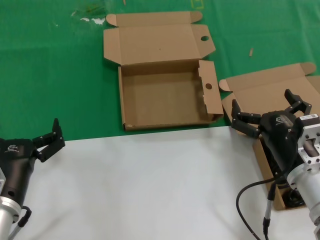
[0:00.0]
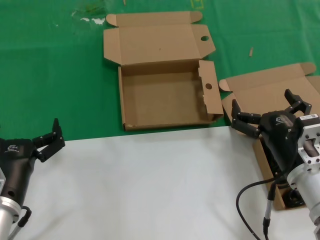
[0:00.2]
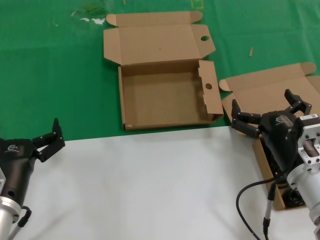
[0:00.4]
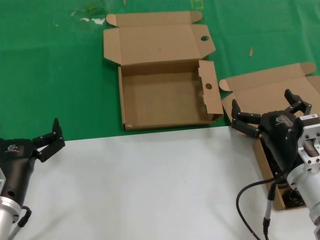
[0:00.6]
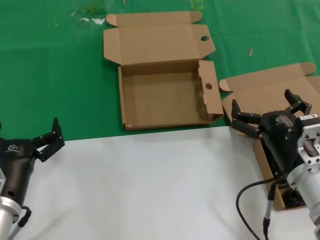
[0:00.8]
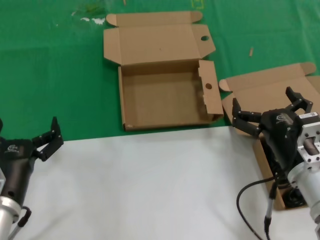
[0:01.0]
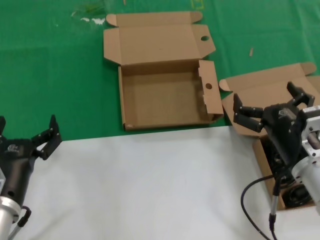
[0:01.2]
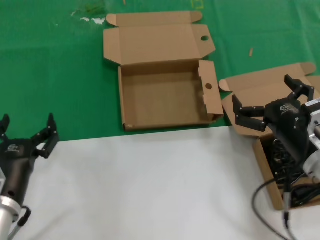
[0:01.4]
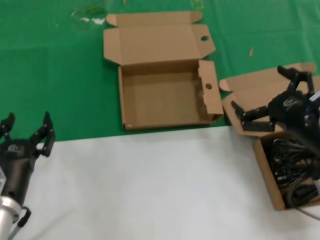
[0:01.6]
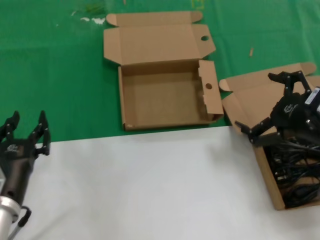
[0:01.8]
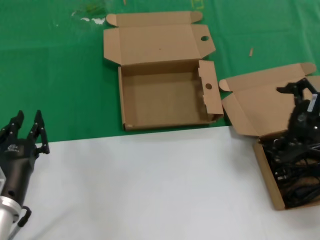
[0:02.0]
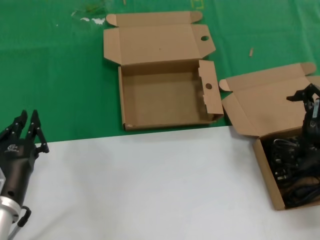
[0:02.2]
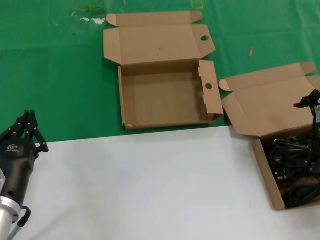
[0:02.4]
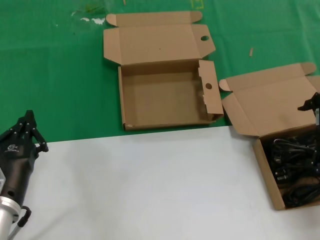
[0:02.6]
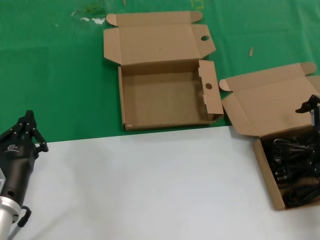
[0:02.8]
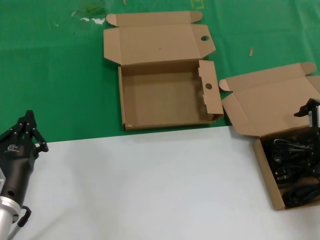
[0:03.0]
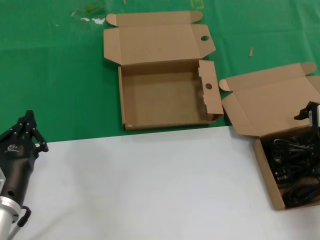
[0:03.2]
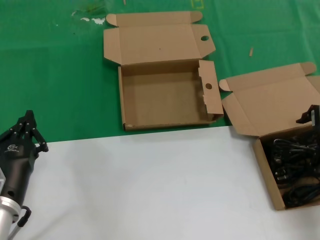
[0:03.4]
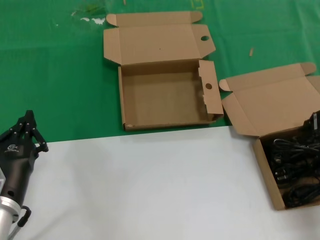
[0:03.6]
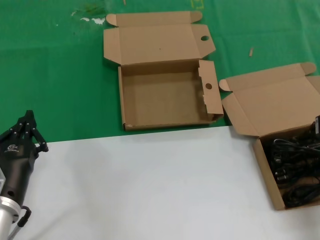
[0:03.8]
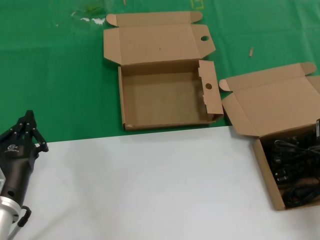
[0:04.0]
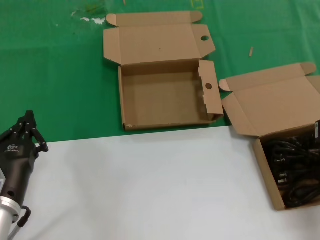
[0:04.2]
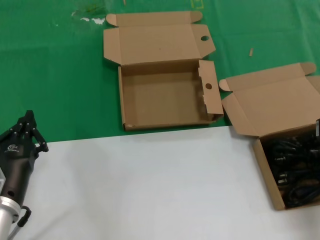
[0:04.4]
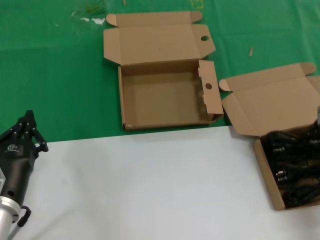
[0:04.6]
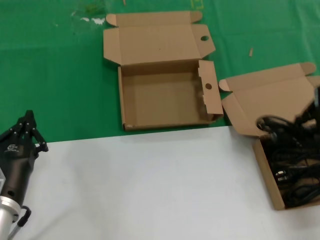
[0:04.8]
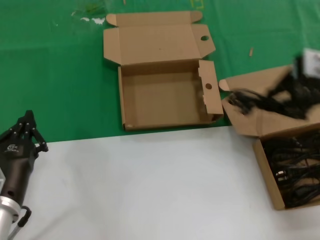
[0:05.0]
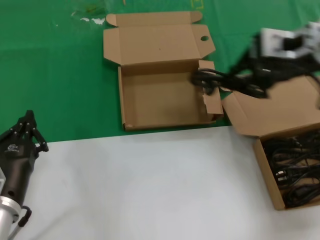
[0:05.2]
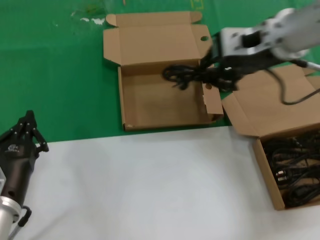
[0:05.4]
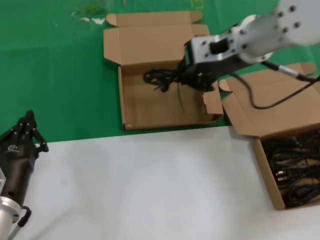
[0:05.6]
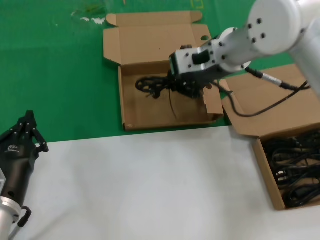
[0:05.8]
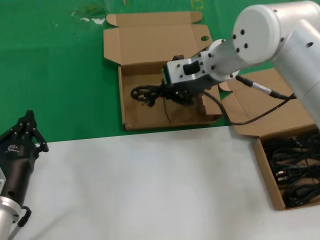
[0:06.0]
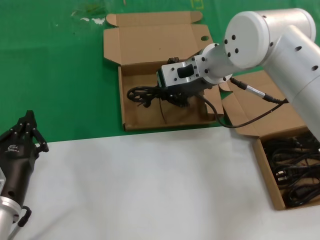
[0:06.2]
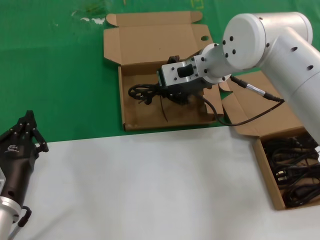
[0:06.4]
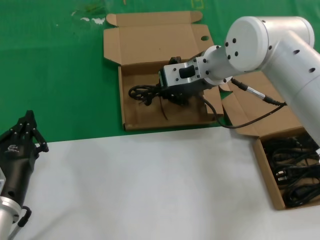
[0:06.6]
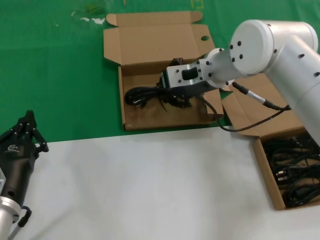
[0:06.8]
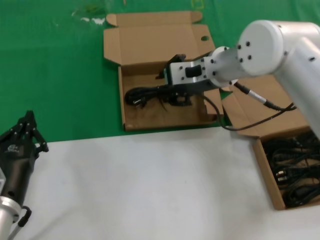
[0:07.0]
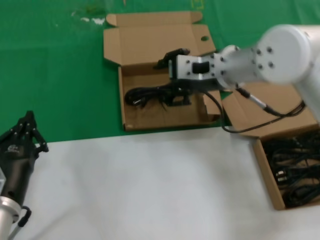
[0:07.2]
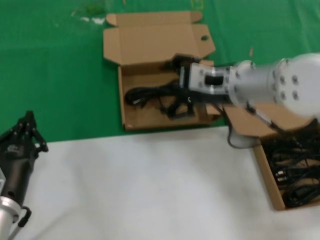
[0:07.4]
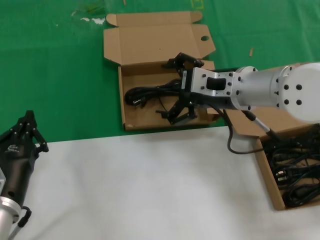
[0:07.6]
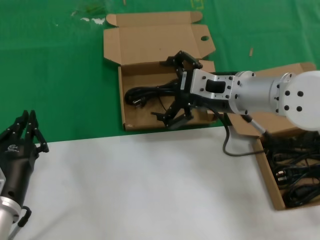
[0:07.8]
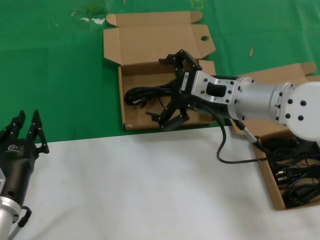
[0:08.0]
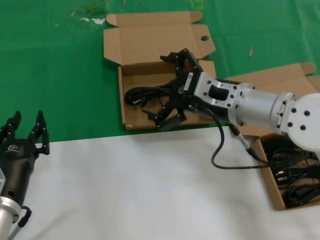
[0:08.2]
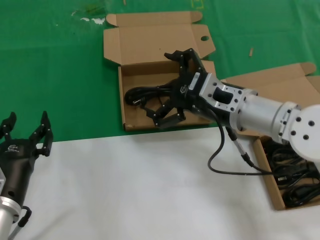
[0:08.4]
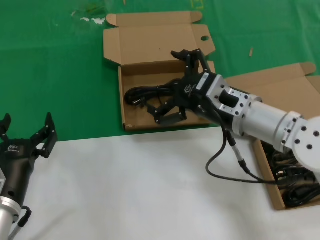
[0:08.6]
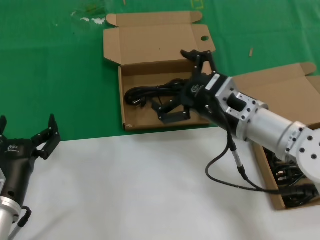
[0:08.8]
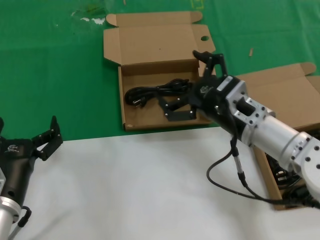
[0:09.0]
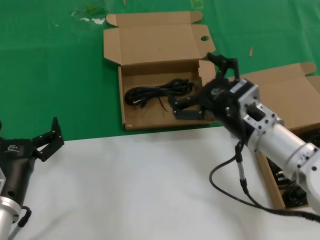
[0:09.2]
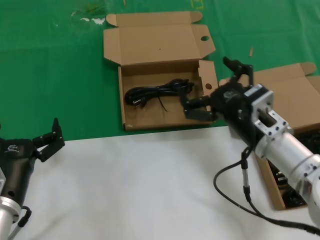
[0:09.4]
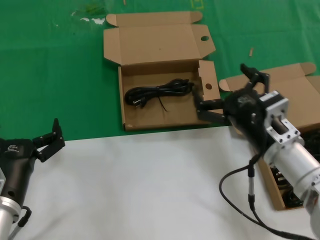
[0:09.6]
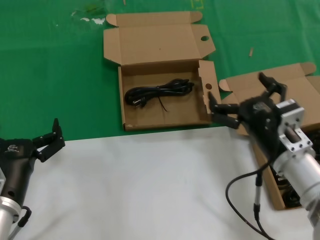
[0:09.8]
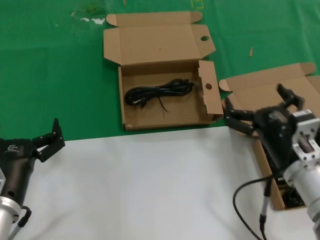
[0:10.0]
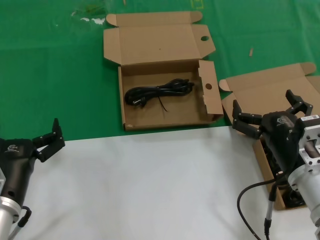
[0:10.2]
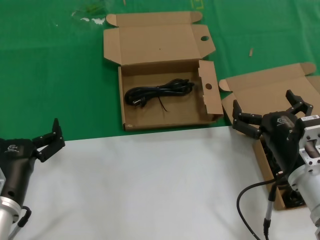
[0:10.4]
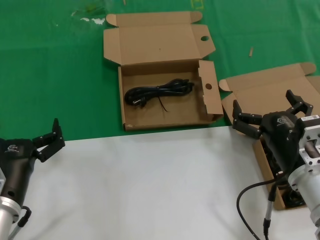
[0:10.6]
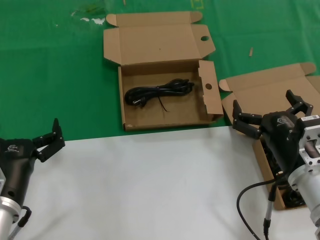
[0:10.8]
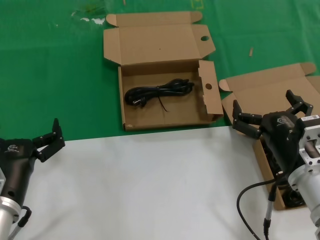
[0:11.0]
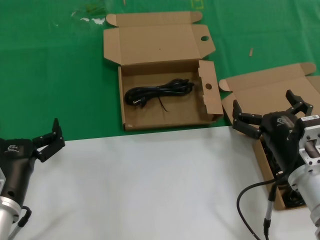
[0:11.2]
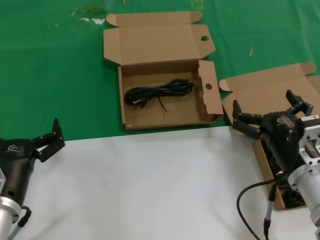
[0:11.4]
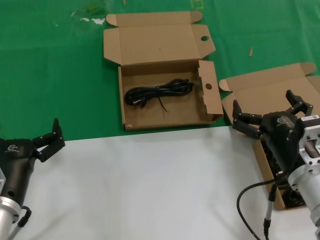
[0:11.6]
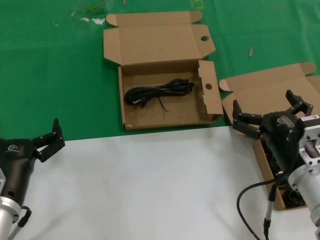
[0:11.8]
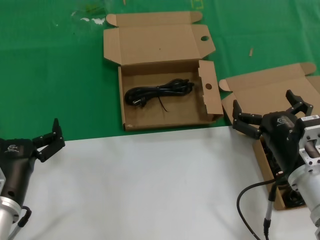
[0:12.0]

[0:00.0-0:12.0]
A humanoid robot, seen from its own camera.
Task of the whole recording: take the parts from the box containing them and put them into an empty box.
Step, 0:00.0 to 0:04.2: Grasp the data cable.
Step, 0:04.4 to 0:07.2: Place the data cable in the another box.
0:00.0 to 0:01.6: The right hand shifts about 10 cm upward and to the right.
0:01.6 to 0:03.0: The right hand shifts about 15 cm forward, to the right and upward.
0:04.4 to 0:06.0: The right hand shifts about 30 cm to the left and forward.
0:06.0 to 0:07.6: The right hand moves backward, approximately 10 cm.
0:07.6 to 0:09.0: The right hand goes about 10 cm downward and backward.
0:09.0 to 0:10.4: The right hand heads downward, backward and to the right, covering approximately 10 cm.
0:10.4 to 0:12.0: Both hands stay put.

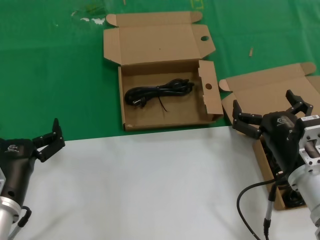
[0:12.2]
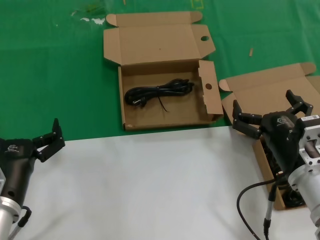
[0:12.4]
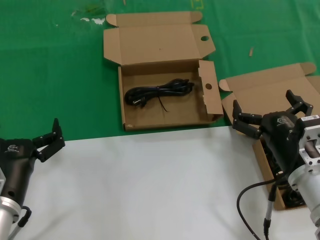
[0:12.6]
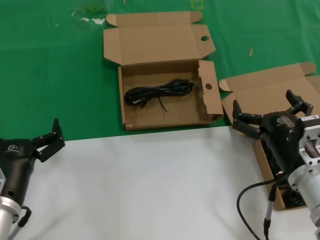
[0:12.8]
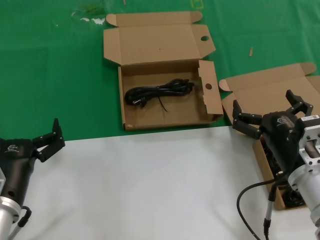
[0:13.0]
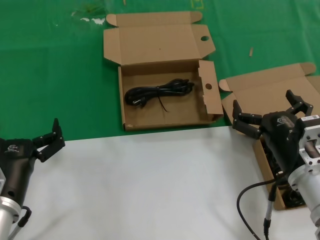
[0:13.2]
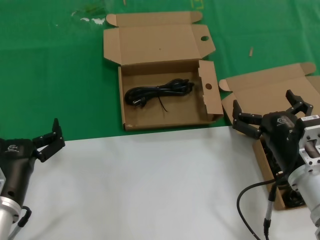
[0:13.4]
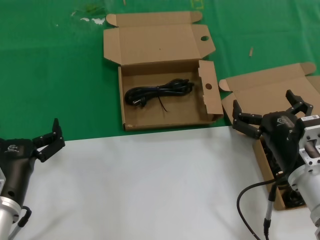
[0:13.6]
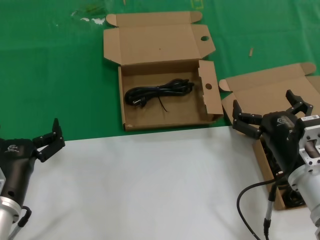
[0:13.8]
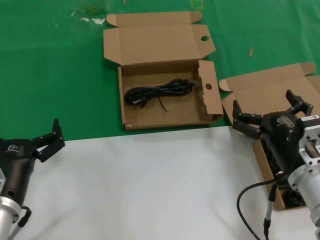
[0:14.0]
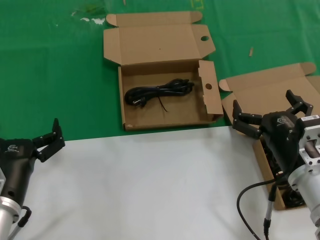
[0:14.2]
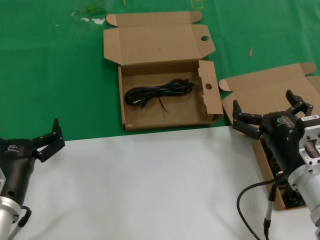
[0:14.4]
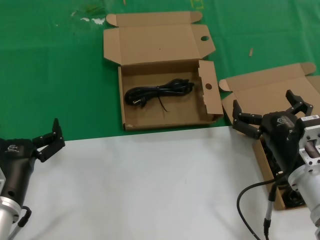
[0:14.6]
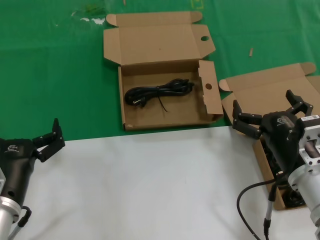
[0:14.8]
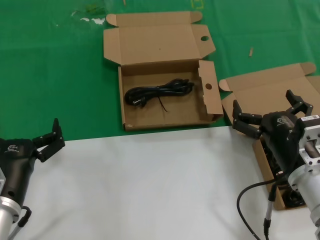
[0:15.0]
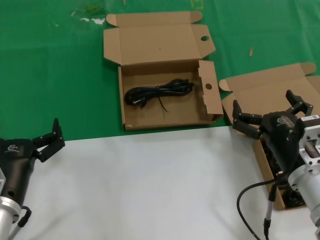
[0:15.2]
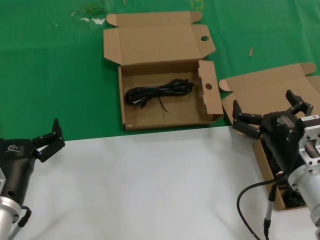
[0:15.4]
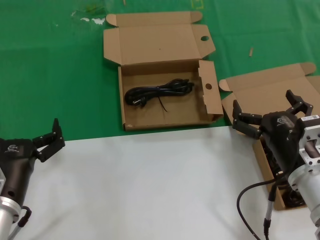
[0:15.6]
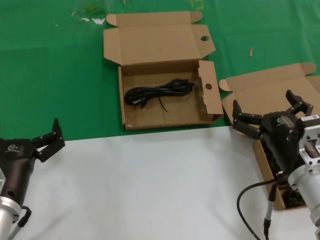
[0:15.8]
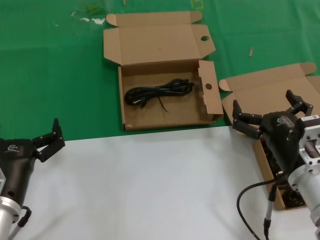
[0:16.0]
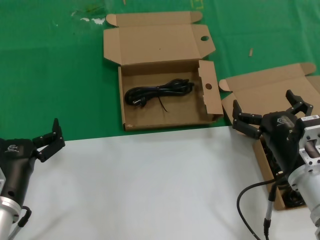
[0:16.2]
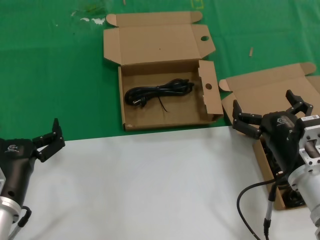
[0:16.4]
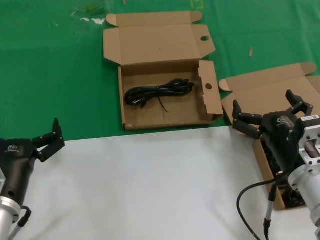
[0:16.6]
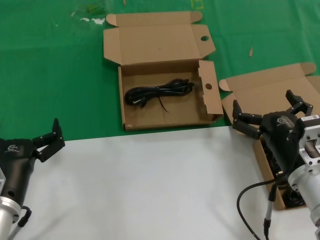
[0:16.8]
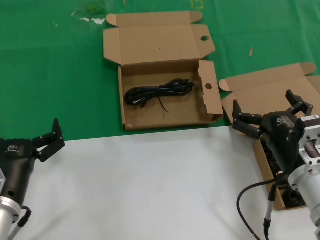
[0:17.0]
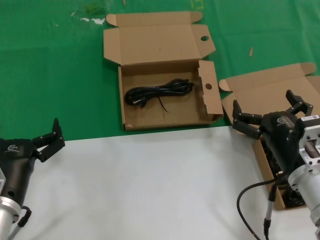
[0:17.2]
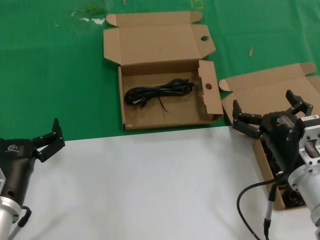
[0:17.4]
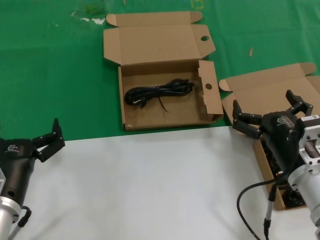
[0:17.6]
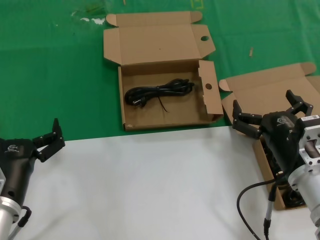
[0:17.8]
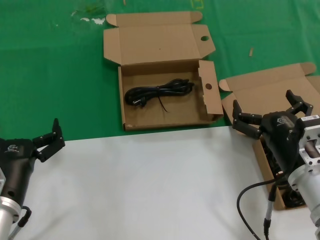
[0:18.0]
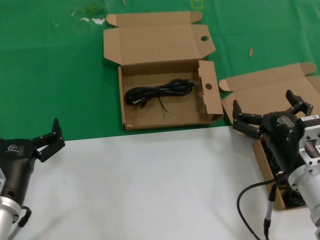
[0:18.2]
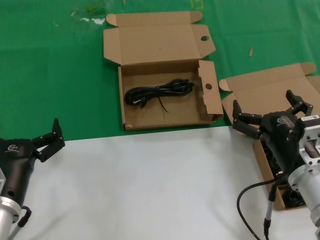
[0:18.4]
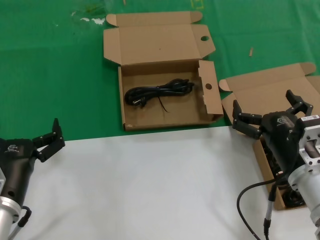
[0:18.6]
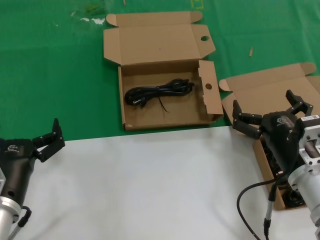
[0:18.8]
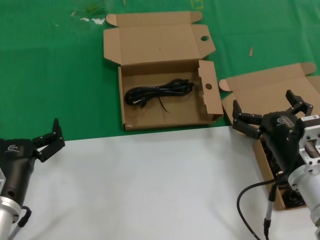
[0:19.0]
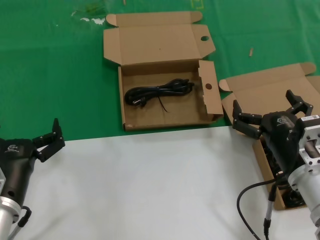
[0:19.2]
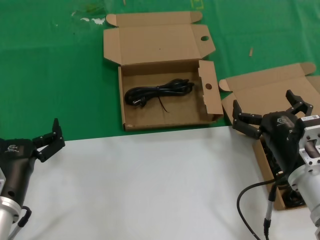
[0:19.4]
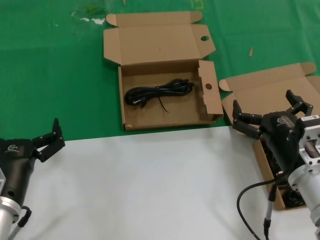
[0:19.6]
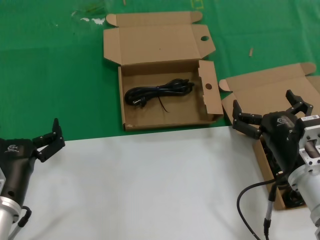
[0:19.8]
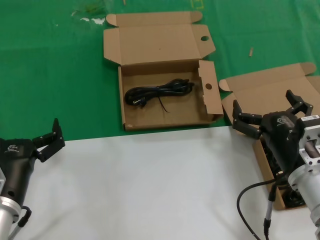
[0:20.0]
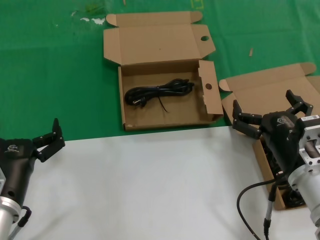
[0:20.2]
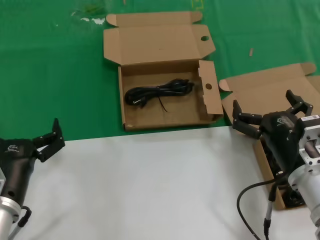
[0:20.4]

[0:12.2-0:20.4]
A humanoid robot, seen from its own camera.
Task of the whole recording: take the parts from the box containing them and put them into an empty box.
0:12.2 to 0:20.4: Neither hand changes place.

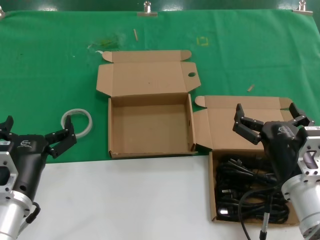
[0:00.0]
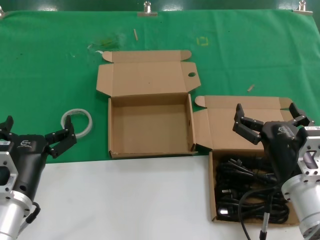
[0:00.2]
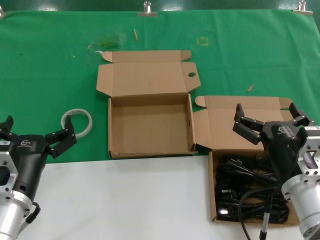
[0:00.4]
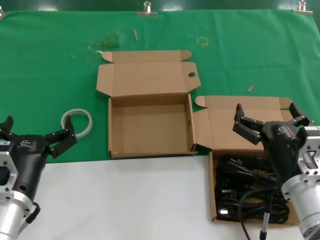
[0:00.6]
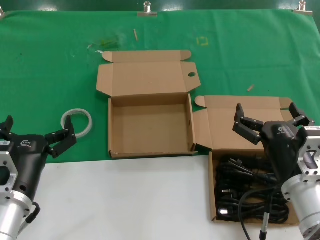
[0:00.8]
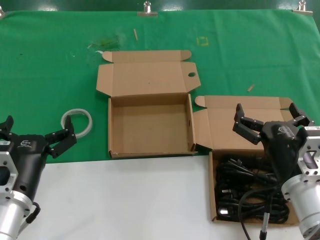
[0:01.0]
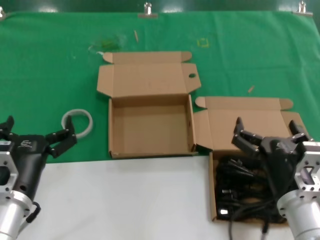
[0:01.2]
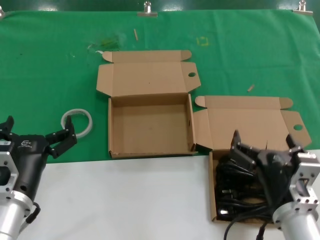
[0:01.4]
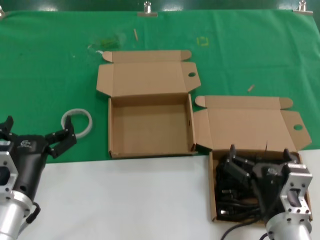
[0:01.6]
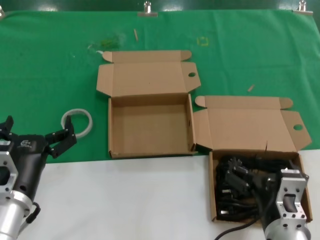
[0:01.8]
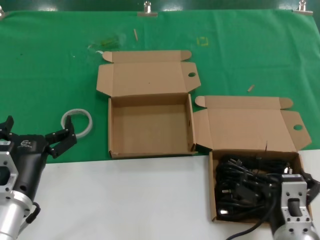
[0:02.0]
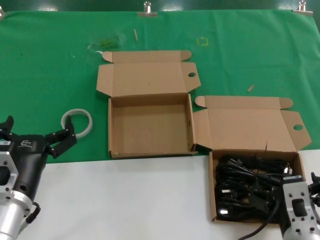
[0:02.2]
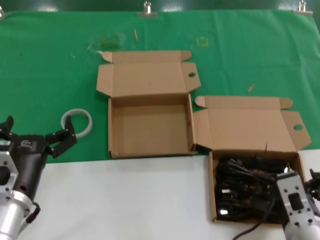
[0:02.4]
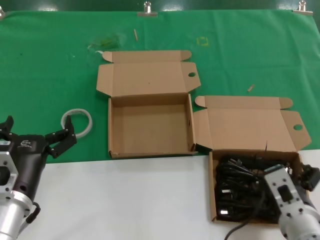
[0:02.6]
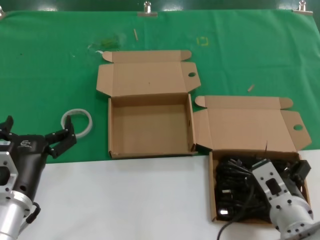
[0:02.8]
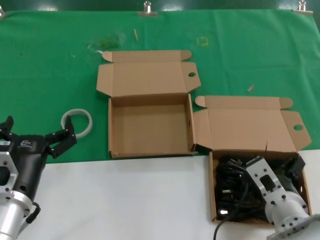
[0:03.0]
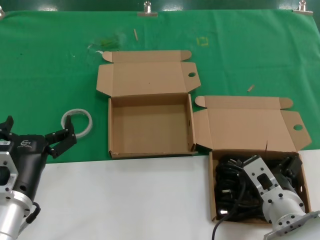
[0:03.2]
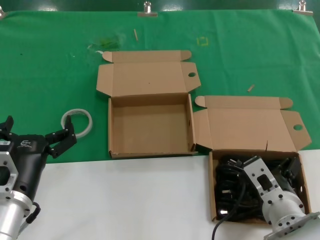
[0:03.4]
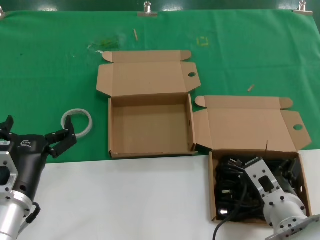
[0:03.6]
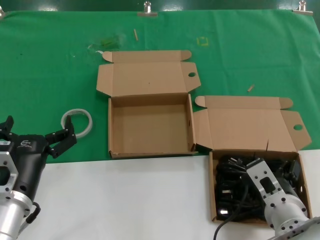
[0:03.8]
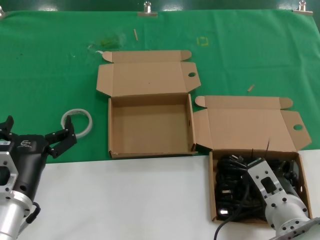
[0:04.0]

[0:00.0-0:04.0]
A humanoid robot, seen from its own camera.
Task of the whole recording: take the parts from the box containing them and put them into an empty box.
0:00.0 to 0:01.4: The hands make only small movements.
0:02.6 to 0:04.0: The hands stay close to where they were, moving slightly.
